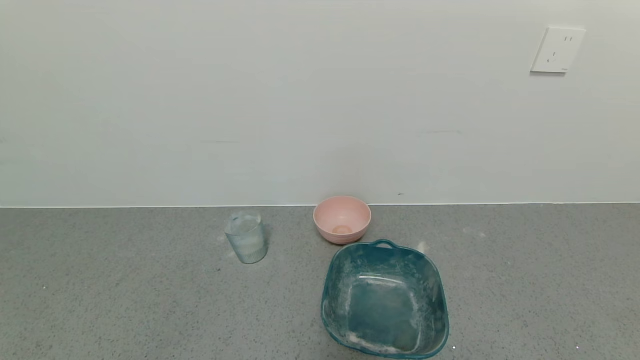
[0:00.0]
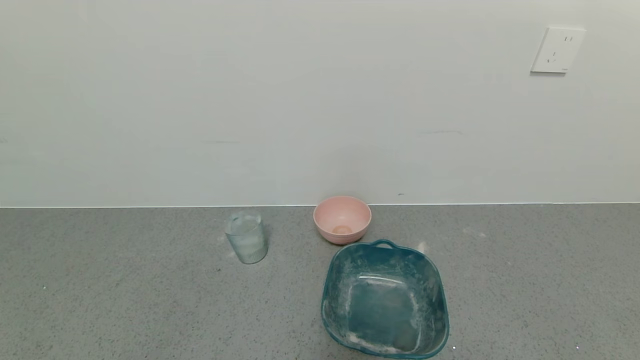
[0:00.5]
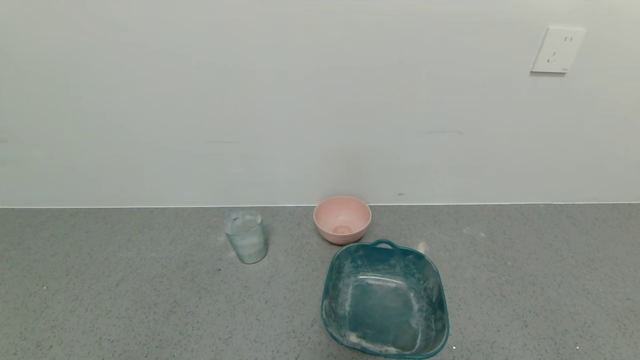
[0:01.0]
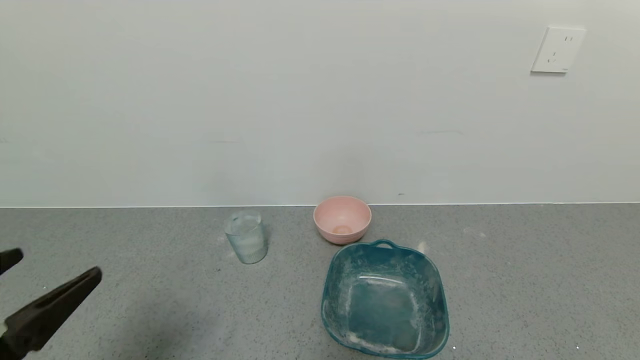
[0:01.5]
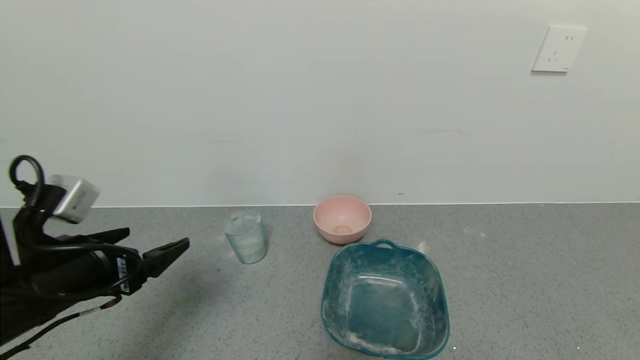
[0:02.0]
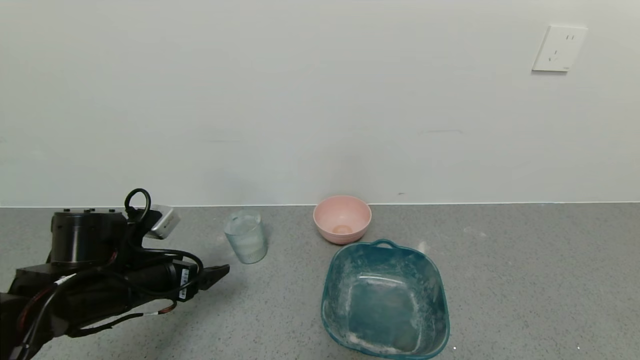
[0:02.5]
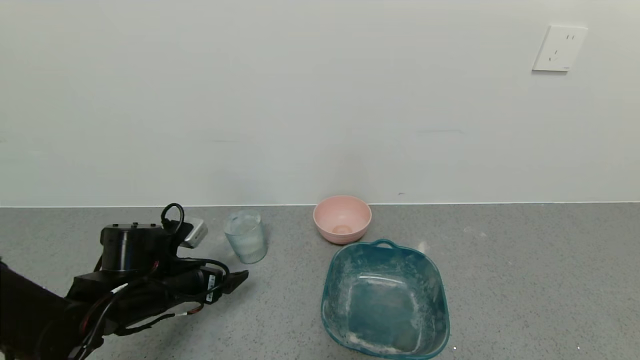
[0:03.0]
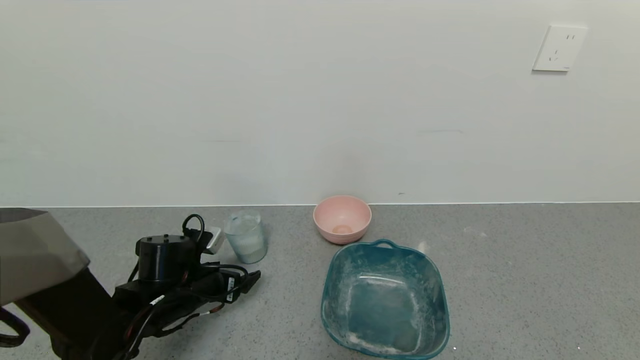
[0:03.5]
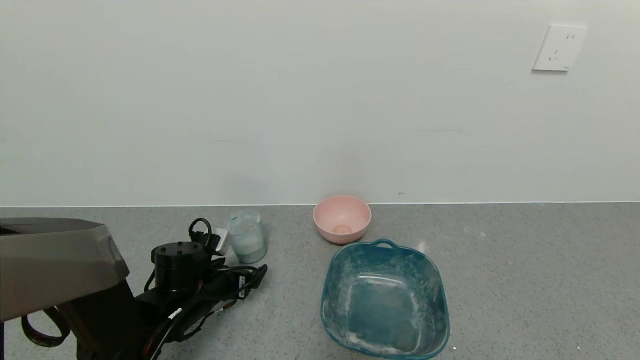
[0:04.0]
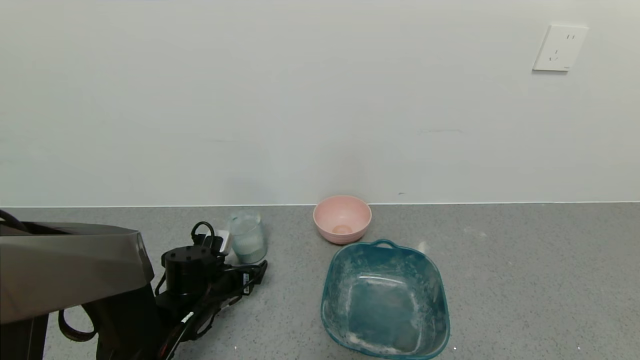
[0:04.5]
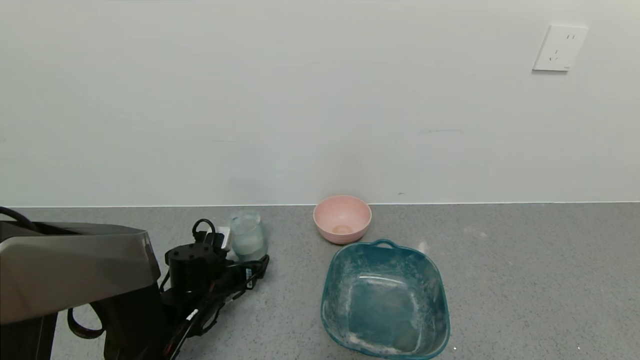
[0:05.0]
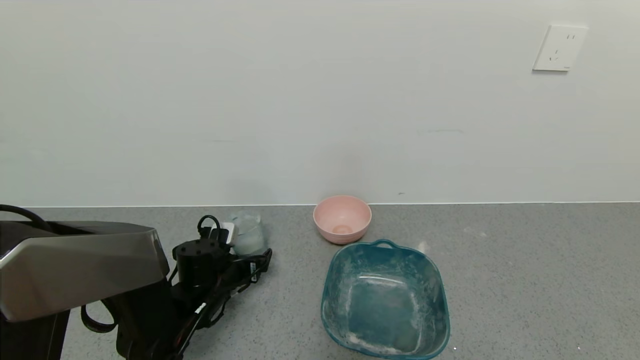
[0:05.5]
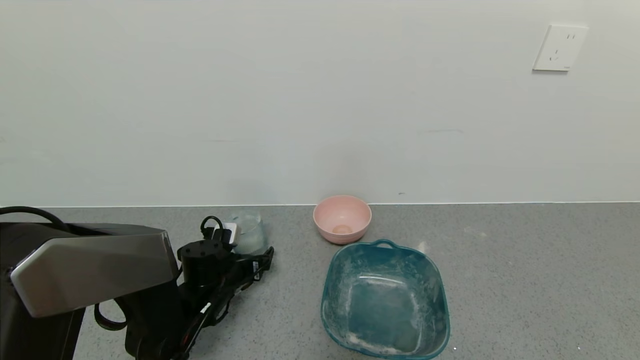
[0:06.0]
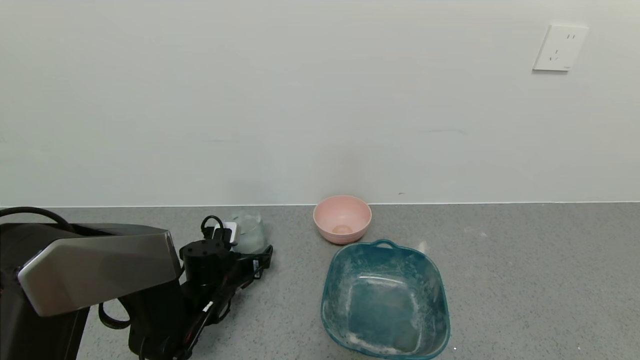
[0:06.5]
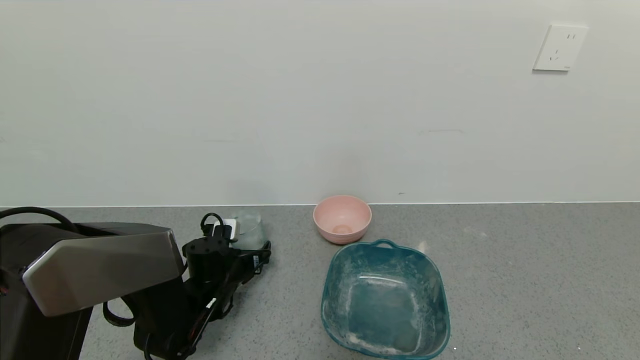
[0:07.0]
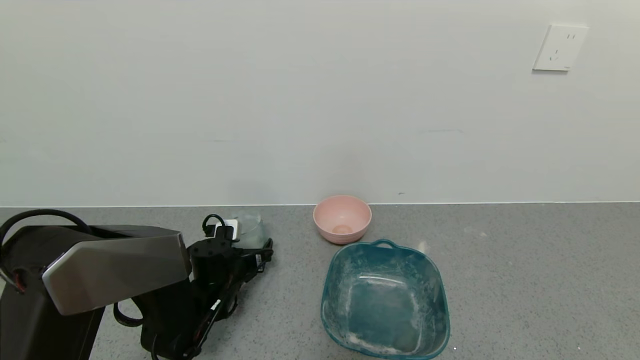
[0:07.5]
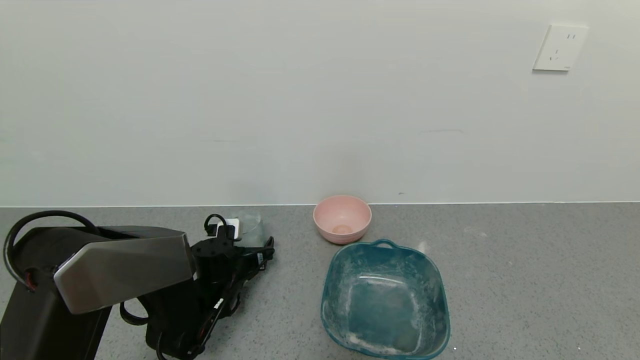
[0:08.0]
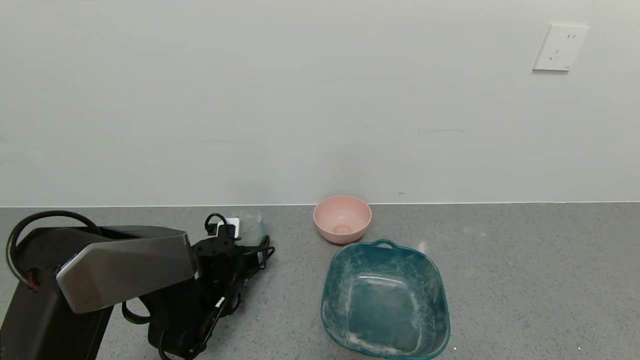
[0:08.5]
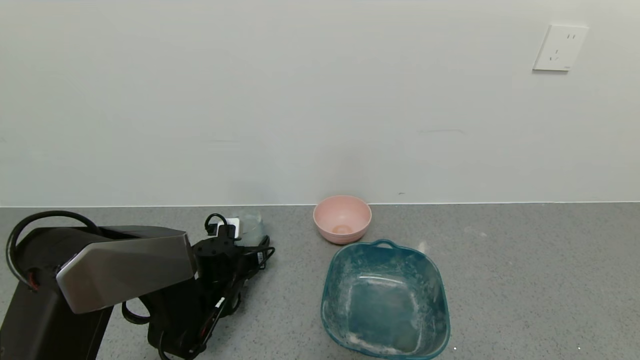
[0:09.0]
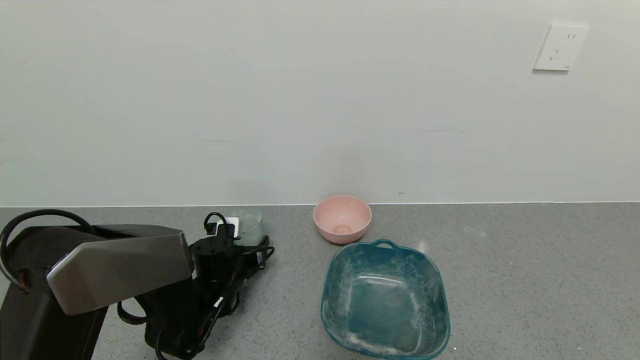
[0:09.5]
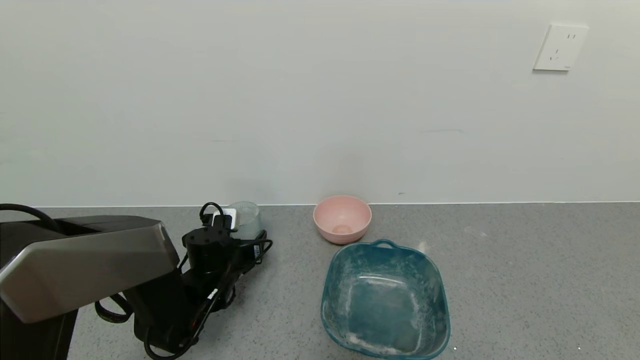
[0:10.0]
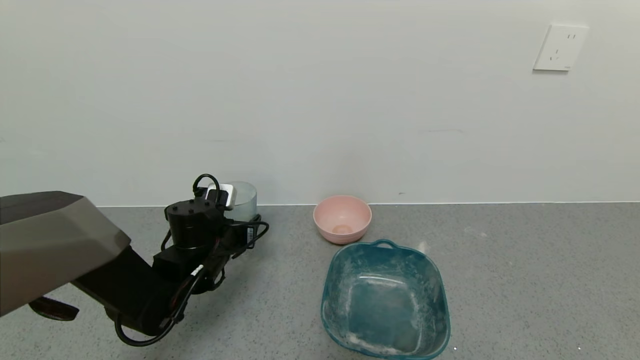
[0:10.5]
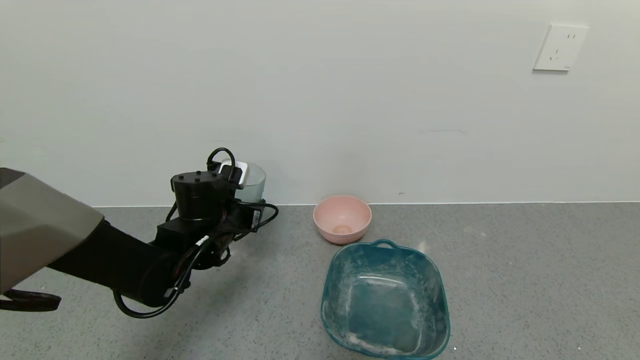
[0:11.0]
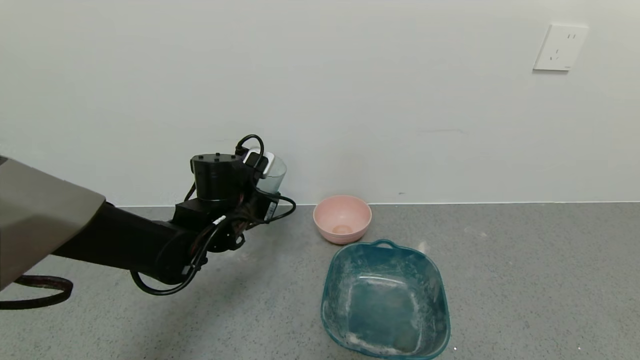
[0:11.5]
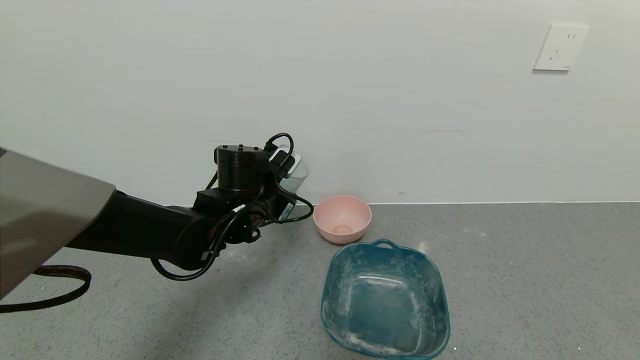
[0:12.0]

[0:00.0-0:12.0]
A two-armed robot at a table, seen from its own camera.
Task of the whole recording: use a gripper to pick up the cup and pour the powder into a bowl or tray.
Step, 0:00.0 to 0:09.0: Grasp the glass of powder with the left gripper.
0:00.0 to 0:02.0: The left gripper is displaced forward and upward by approximately 25 cm.
0:02.0 to 0:04.0: The left gripper goes roughly 20 cm downward and forward.
0:04.0 to 0:06.0: The grippers move only a little.
0:06.0 to 0:08.0: The grippers stay close to where they were, moving slightly.
0:08.0 to 0:10.0: The left gripper closes.
0:10.0 to 0:12.0: The left gripper travels upward and to the right by some 15 cm.

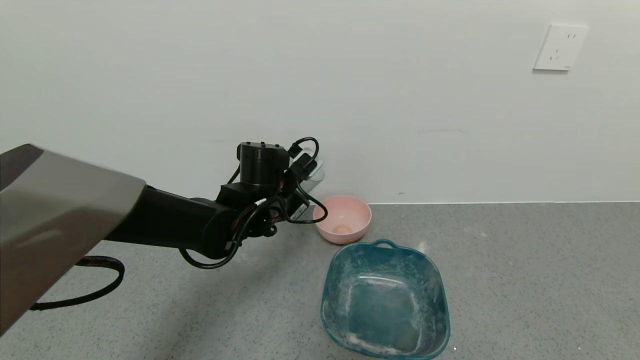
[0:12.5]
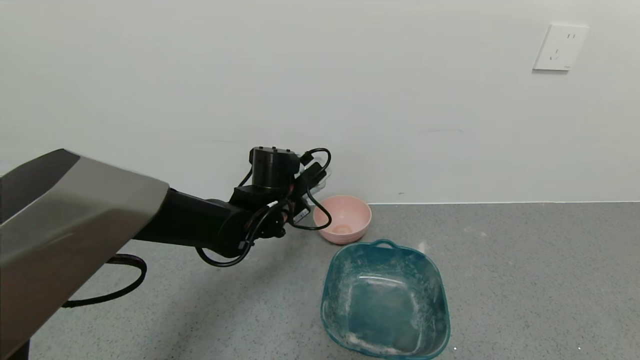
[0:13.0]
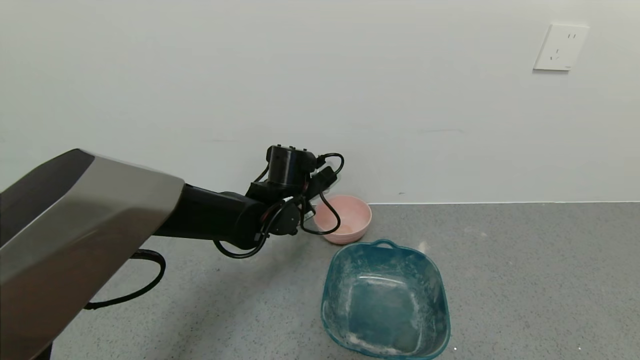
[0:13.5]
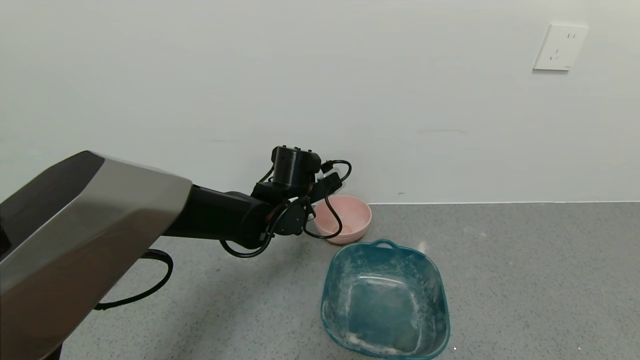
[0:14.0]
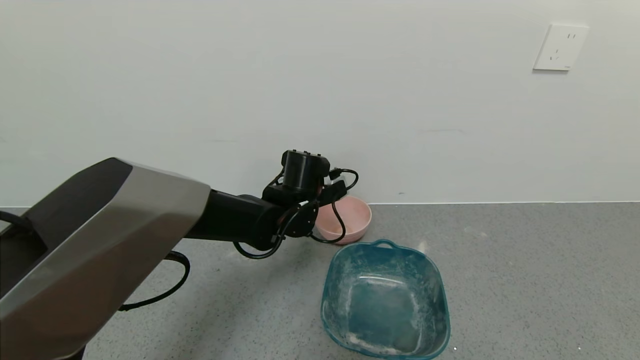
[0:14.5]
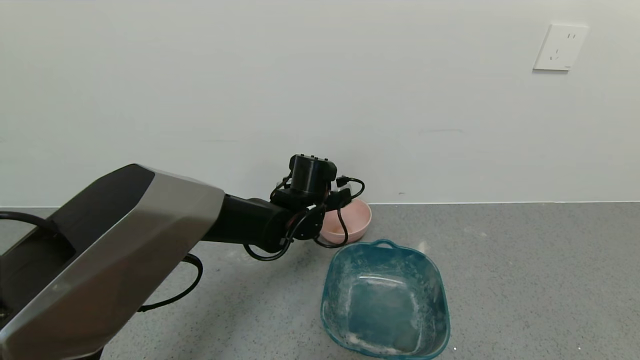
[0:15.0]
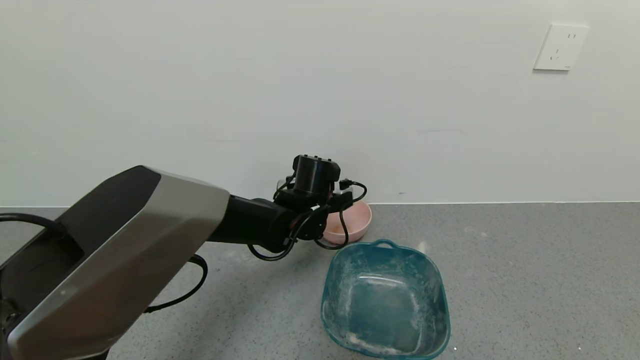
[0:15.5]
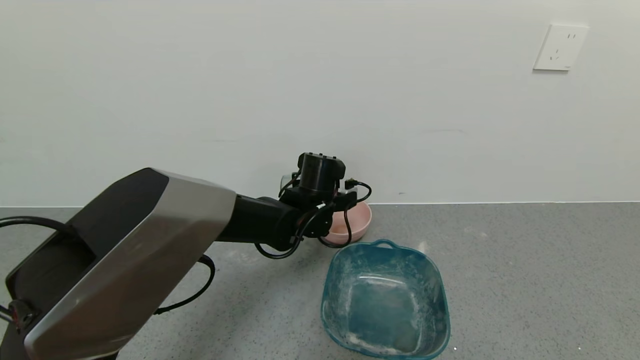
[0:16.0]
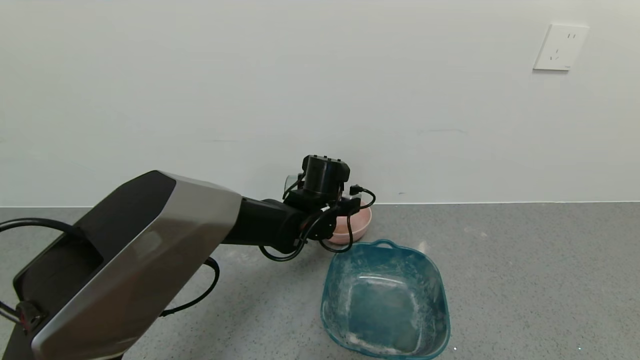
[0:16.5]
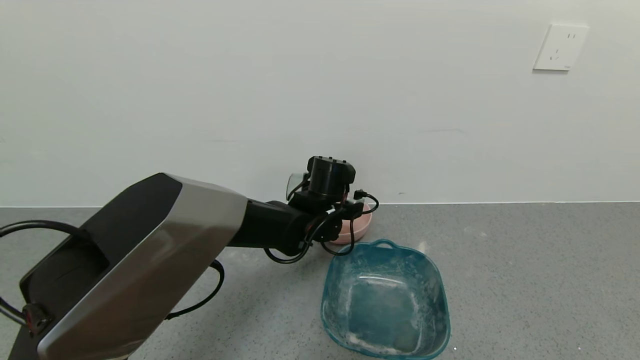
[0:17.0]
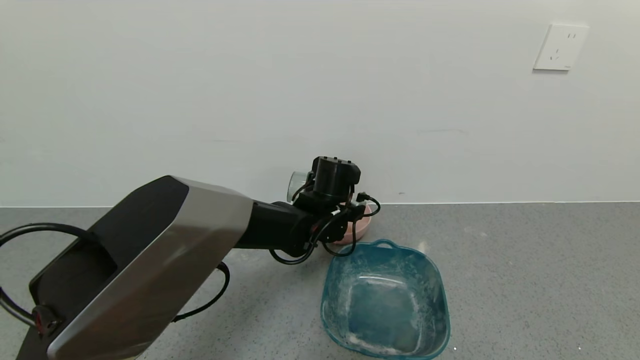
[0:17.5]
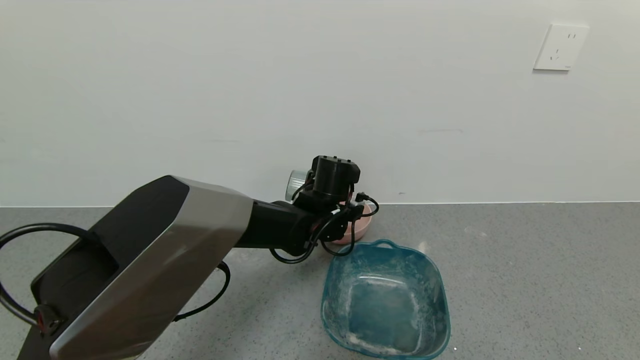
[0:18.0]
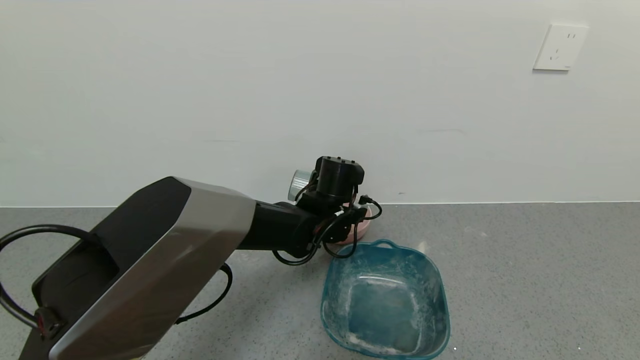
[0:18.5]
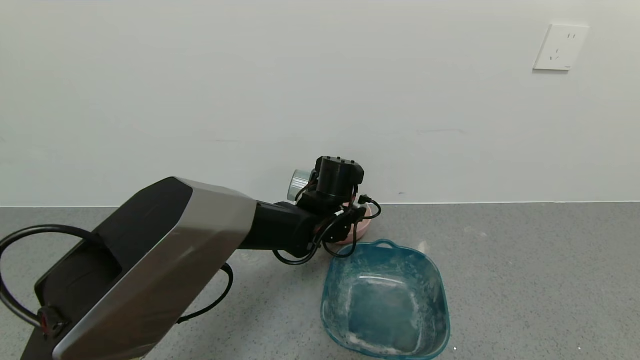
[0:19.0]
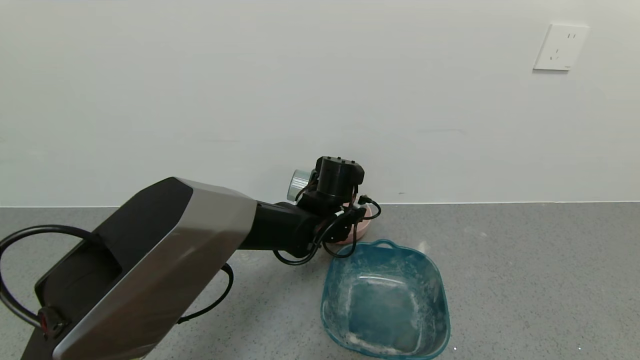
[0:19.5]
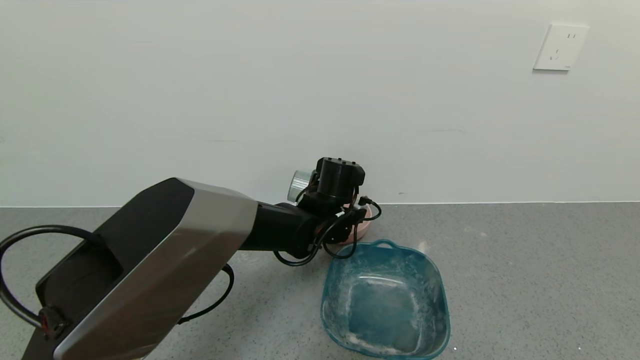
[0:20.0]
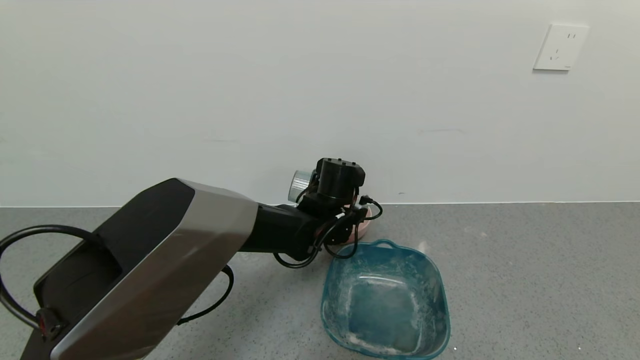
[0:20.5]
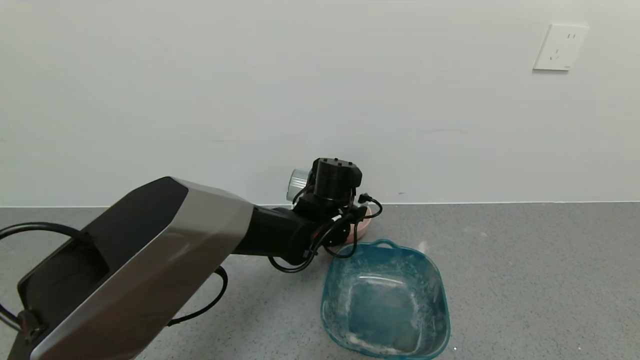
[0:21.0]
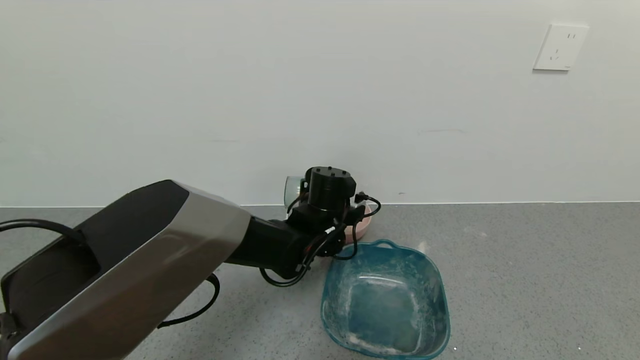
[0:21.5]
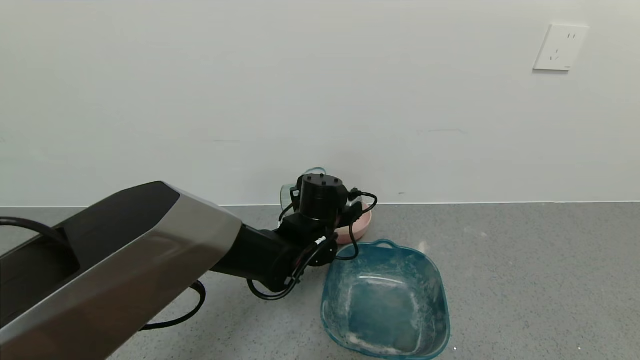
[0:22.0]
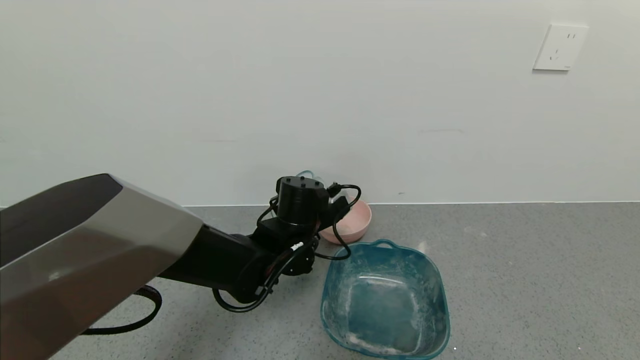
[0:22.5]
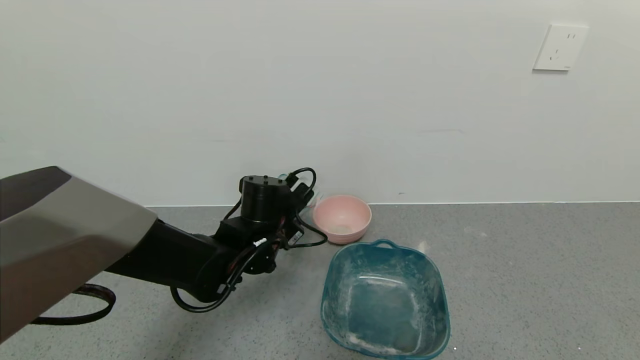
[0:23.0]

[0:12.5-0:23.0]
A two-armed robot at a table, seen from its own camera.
Task of the whole recording: use a gripper to pick up the cup and pour the powder into a bowl or tray.
Step, 0:12.5 to 0:22.0: Pour the powder into the pink bowl with the left gripper.
0:12.5 to 0:14.5: The left gripper moves about 5 cm.
0:16.5 to 0:19.0: The grippers make only small movements.
0:19.0 to 0:21.0: Both grippers stay put.
0:21.0 to 0:23.0: The left gripper travels to the left by some 10 cm.
